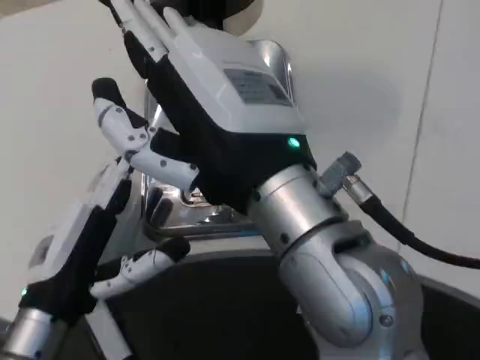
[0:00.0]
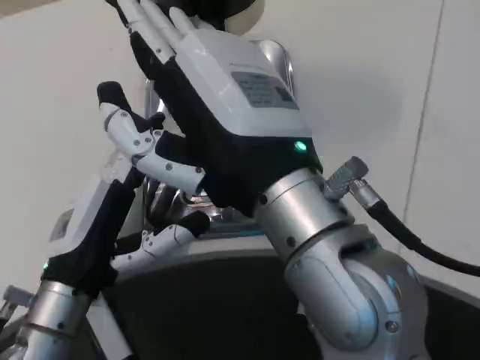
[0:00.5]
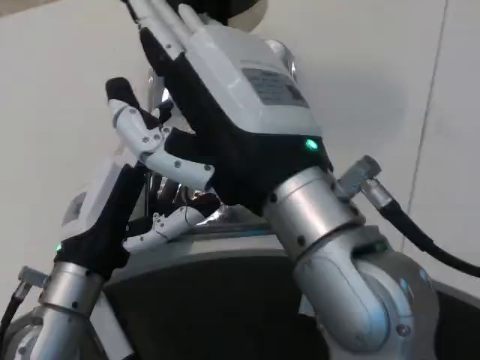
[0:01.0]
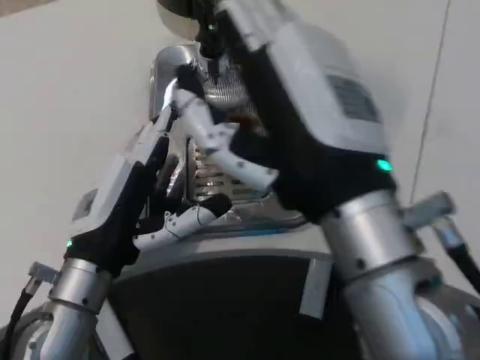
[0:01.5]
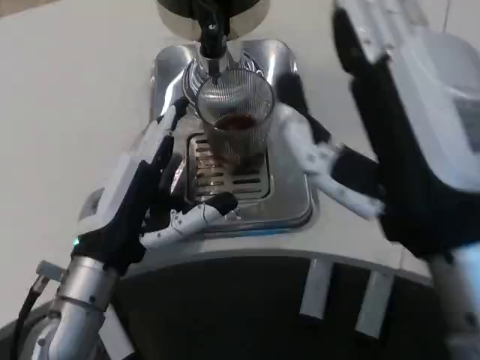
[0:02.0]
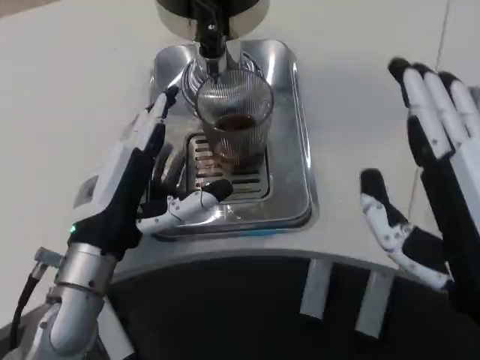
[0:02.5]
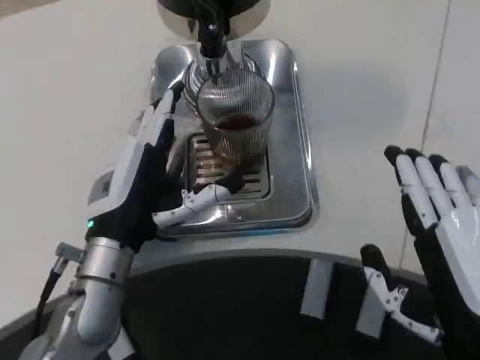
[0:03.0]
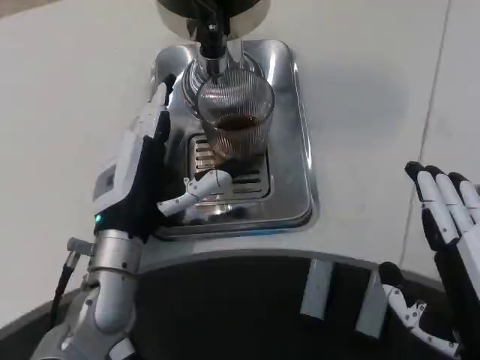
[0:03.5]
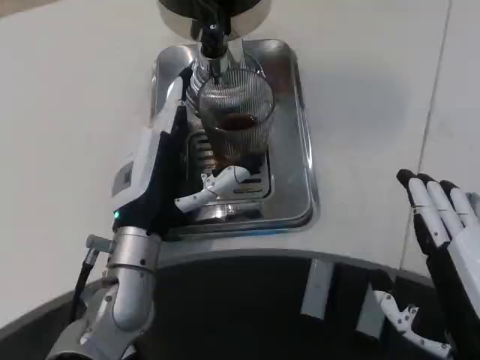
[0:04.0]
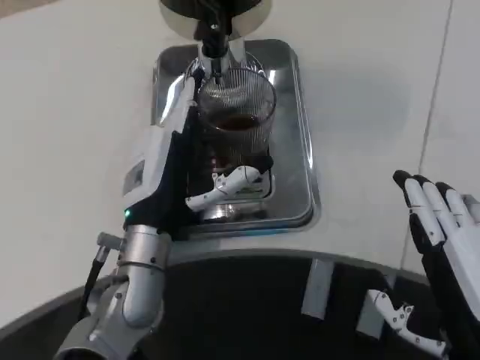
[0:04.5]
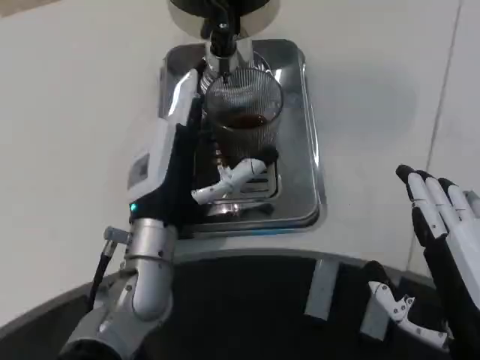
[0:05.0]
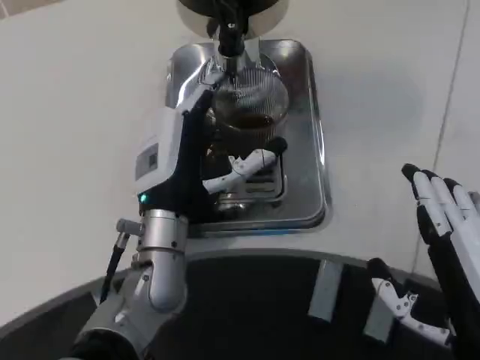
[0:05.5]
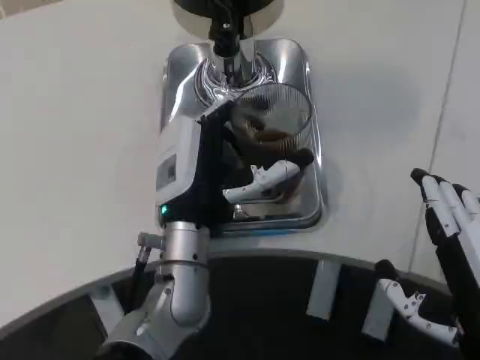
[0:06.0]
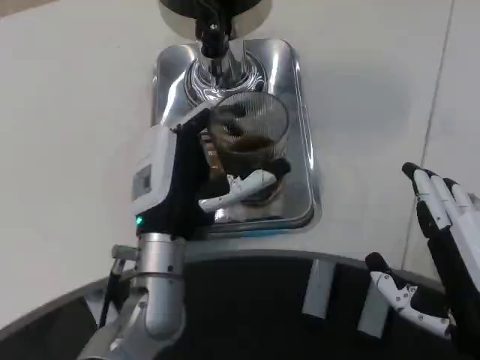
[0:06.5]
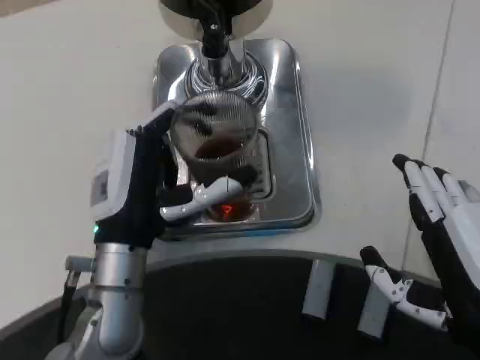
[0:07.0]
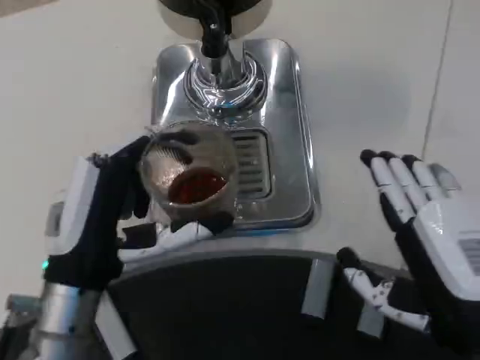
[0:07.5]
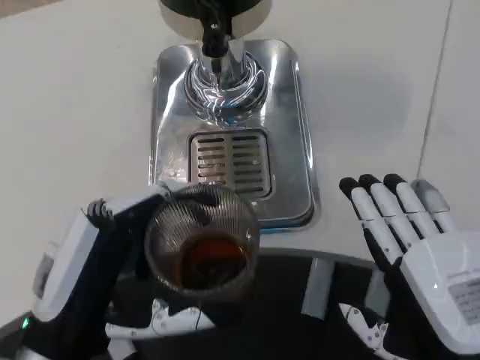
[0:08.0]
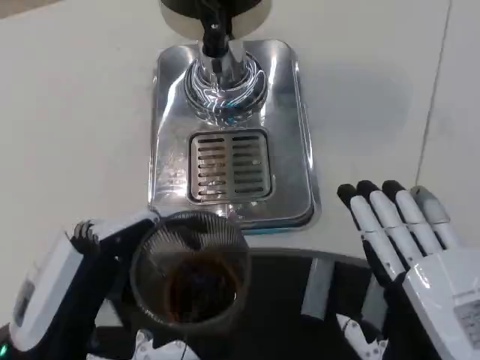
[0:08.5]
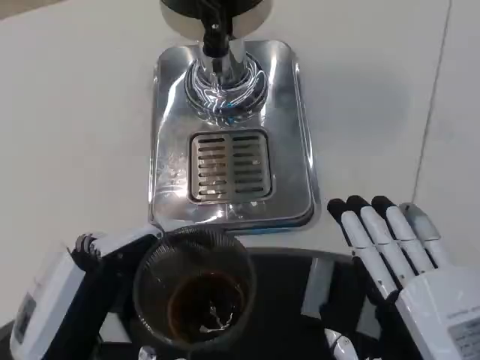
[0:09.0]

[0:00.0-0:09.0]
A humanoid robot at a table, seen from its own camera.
Task of the whole recording: Grasp the cup under the faucet to collect the drink, then remove the cup.
0:00.0 to 0:02.0: The left hand ends up approximately 5 cm from where it was, while the right hand heads to the right, covering some 10 cm.
0:02.0 to 0:04.5: The right hand goes some 10 cm downward and to the right. The left hand travels to the right by approximately 5 cm.
0:07.0 to 0:09.0: The left hand shifts about 15 cm backward and to the left. The right hand ends up about 5 cm from where it was.

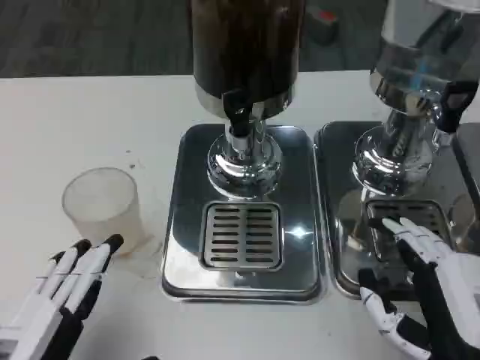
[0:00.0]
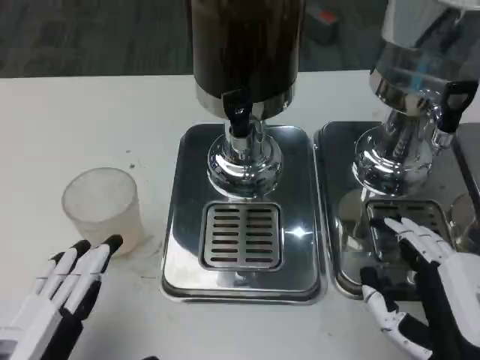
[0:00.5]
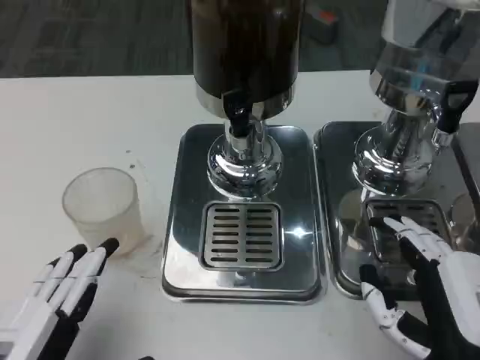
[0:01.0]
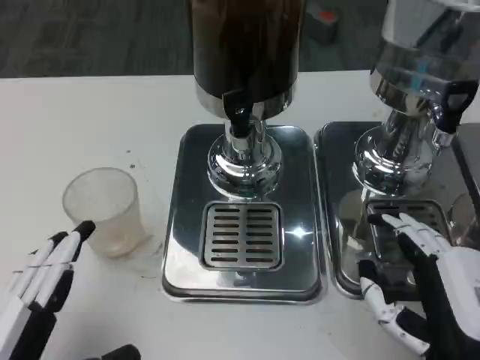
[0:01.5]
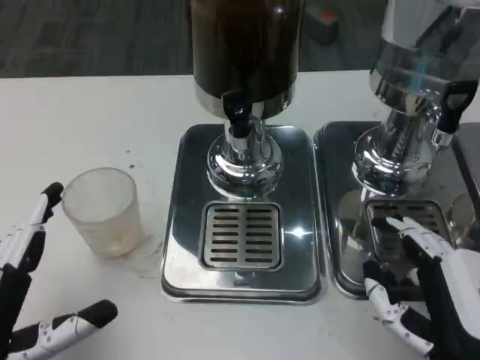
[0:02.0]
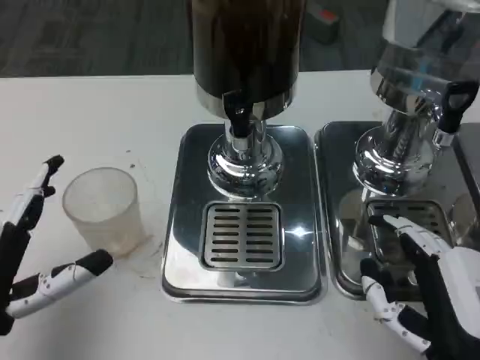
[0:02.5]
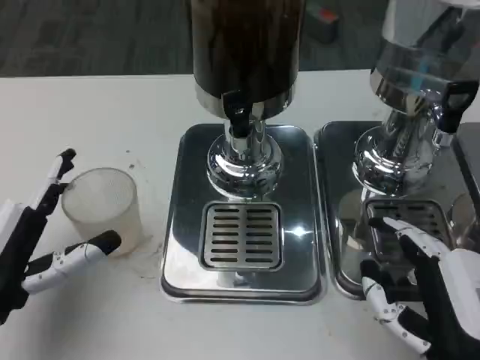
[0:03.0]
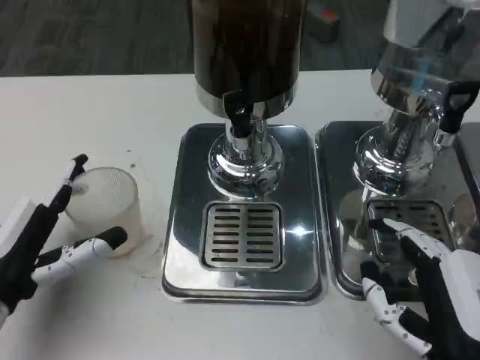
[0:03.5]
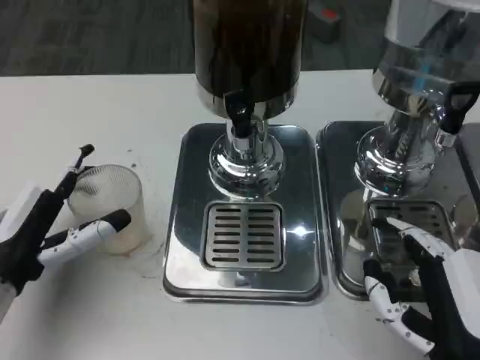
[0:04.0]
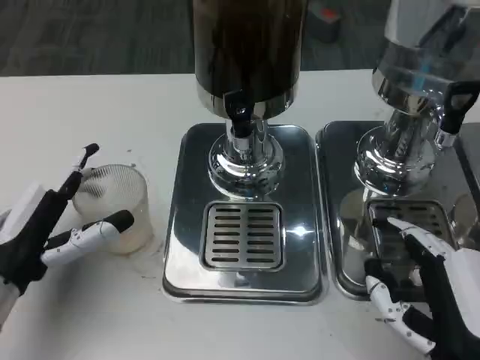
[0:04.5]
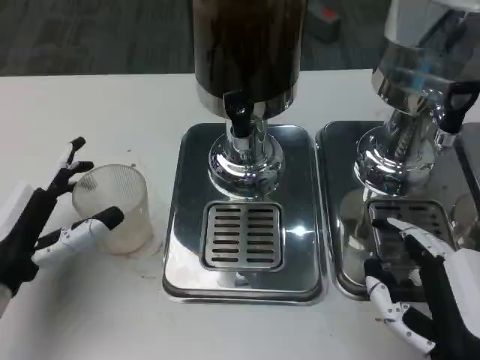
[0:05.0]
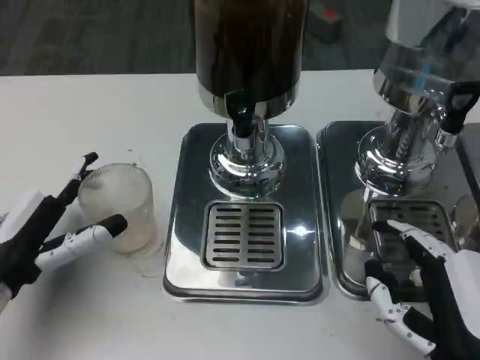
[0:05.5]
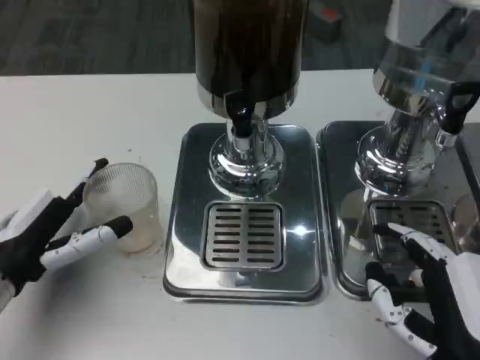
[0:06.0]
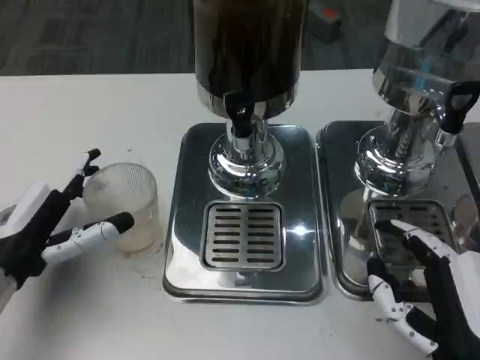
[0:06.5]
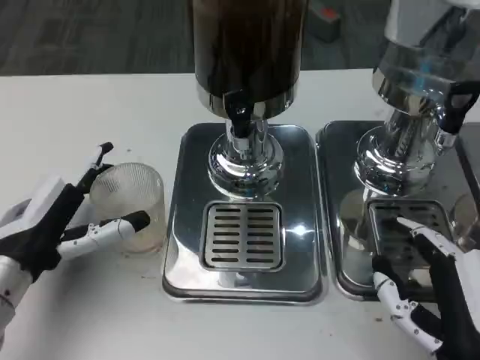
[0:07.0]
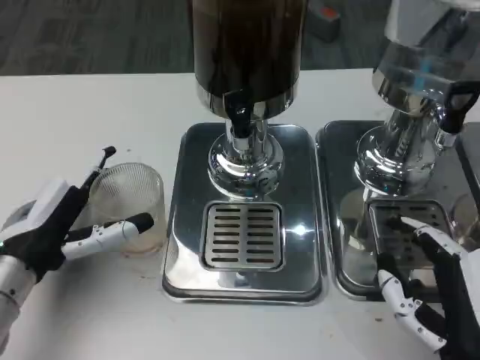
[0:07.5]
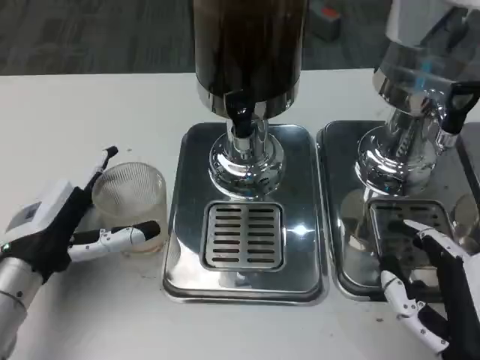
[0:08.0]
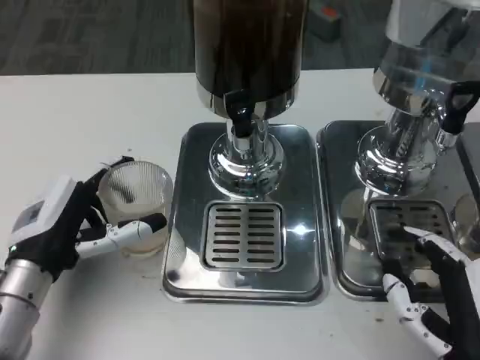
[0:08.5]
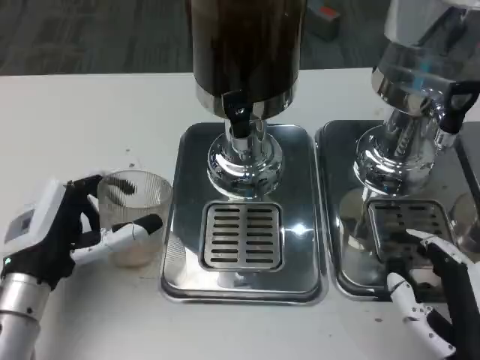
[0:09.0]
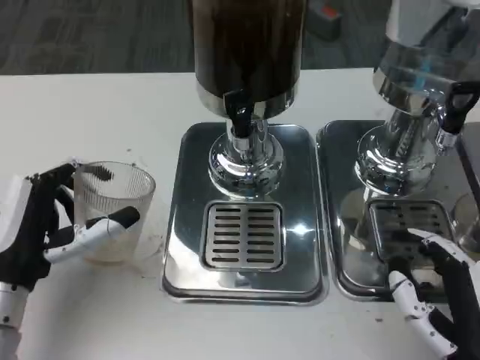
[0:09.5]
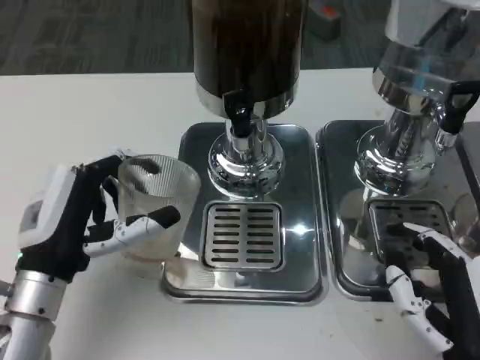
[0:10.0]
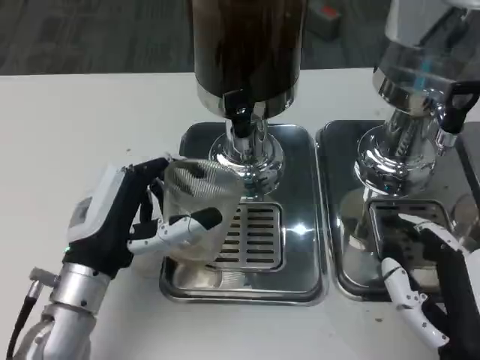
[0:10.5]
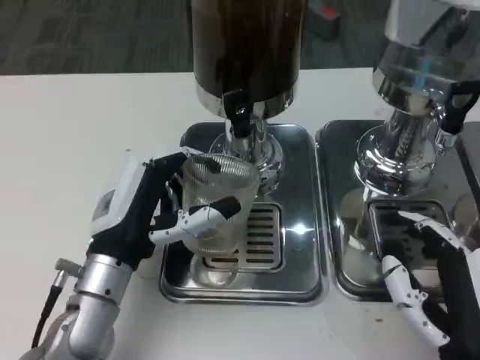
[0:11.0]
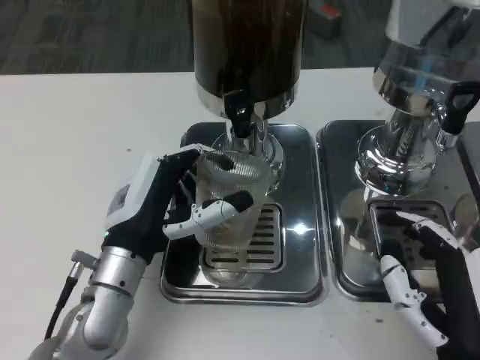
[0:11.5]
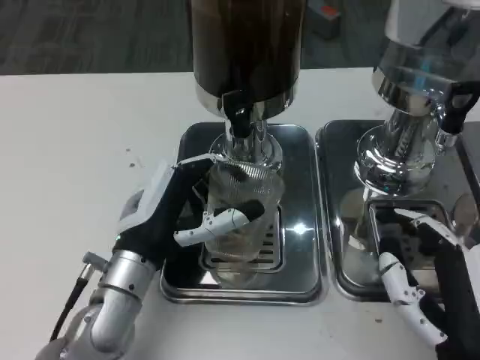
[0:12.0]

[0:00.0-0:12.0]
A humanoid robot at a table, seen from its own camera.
Task of the whole recording: Grasp the cup under the faucet to collect the drink, then remove the cup.
0:00.0 to 0:02.0: The hands move only a little.
0:02.0 to 0:04.0: The left hand goes approximately 10 cm forward.
0:04.0 to 0:08.0: The hands make only small movements.
0:10.0 to 0:12.0: The left hand shifts roughly 5 cm to the right.

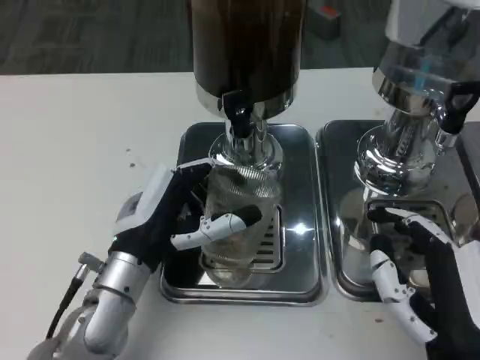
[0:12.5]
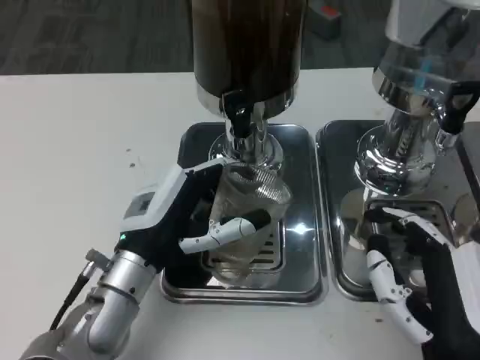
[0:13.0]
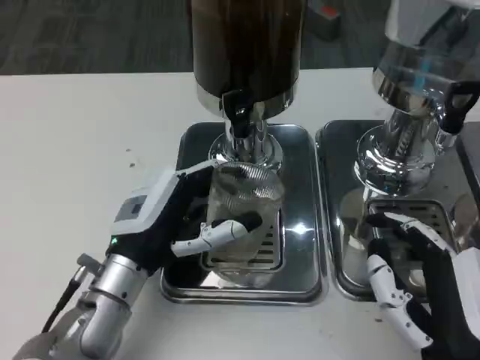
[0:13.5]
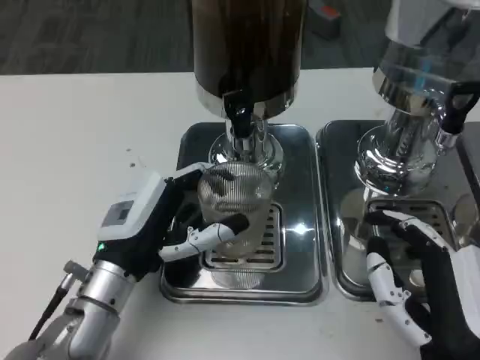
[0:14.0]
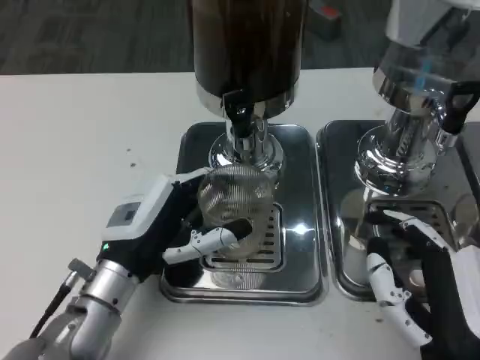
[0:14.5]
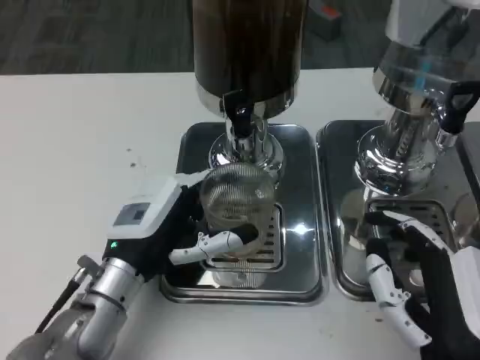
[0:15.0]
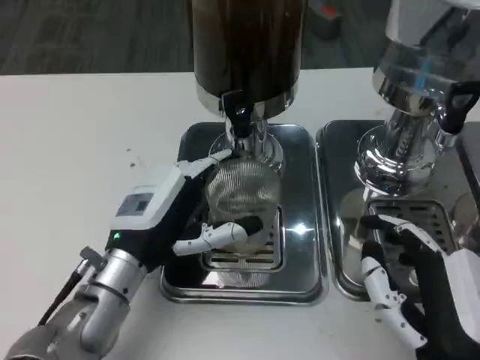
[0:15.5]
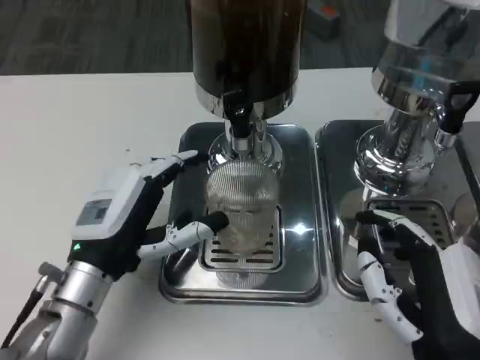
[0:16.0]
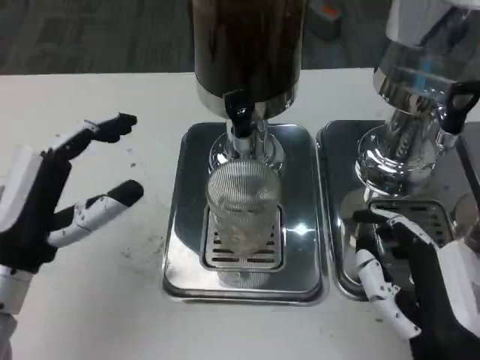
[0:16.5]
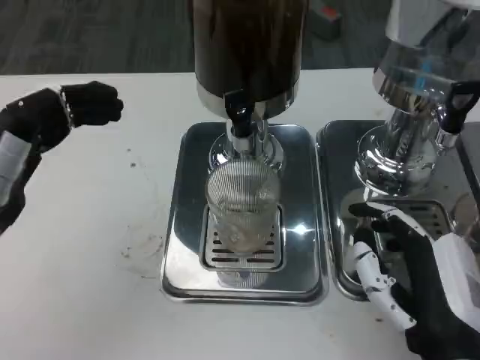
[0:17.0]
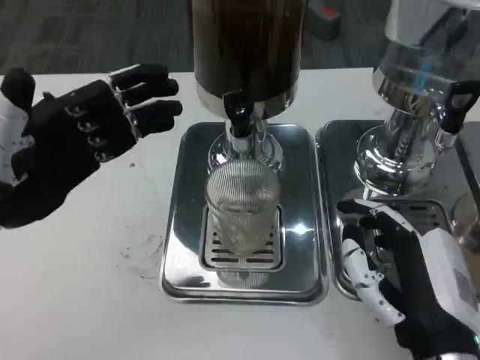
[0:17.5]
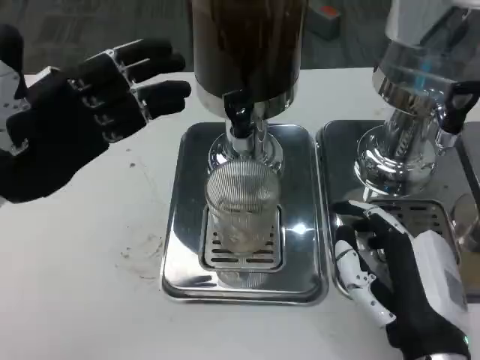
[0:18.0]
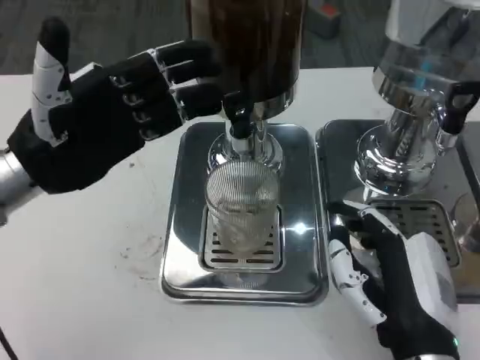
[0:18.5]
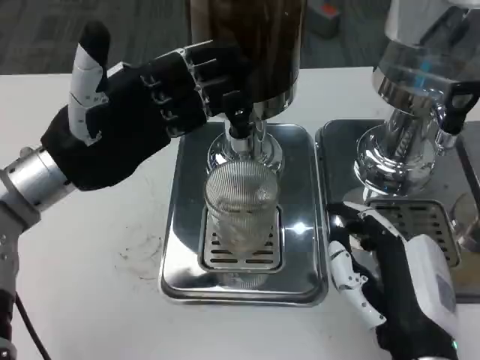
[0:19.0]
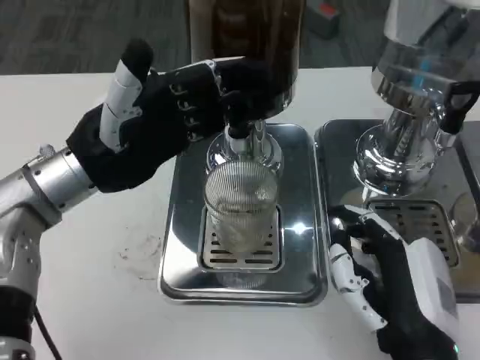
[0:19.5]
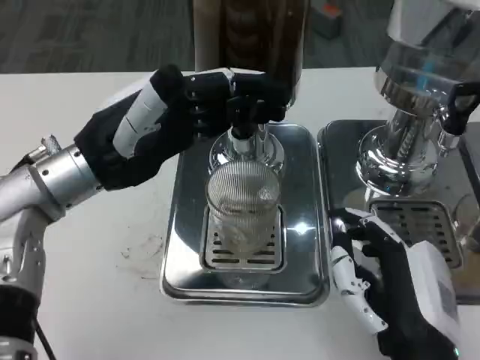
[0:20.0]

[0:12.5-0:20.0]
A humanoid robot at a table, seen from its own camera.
Task of the whole recording: Grasp the cup under the faucet to collect the drink, then remove the cup.
0:12.5 to 0:14.5: The hands stay close to where they were, moving slightly.
0:14.5 to 0:16.5: The left hand moves to the left, about 5 cm.
0:16.5 to 0:18.0: The left hand shifts about 10 cm upward and forward.
0:18.0 to 0:20.0: The left hand heads to the right, covering roughly 5 cm.
